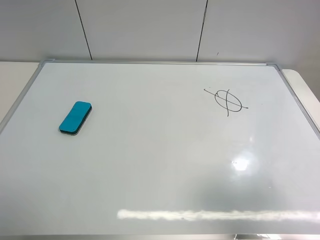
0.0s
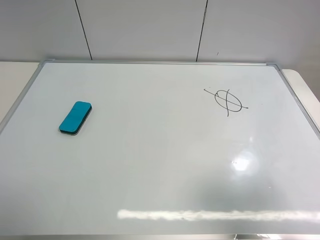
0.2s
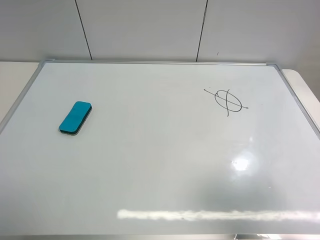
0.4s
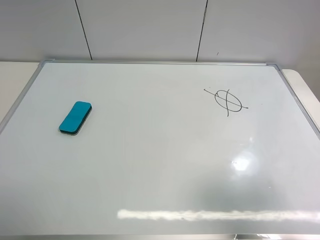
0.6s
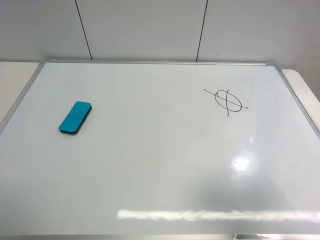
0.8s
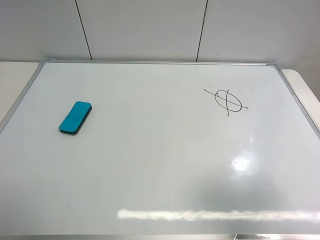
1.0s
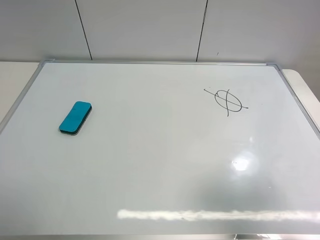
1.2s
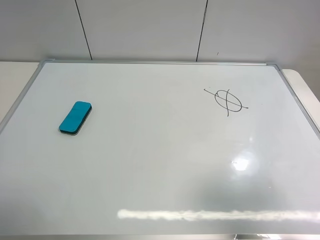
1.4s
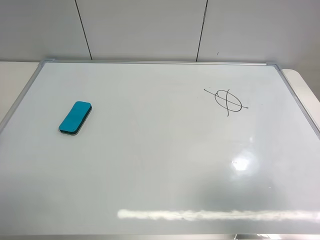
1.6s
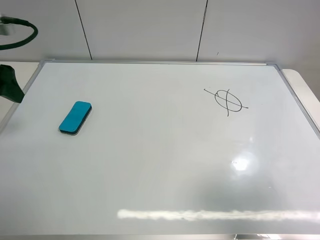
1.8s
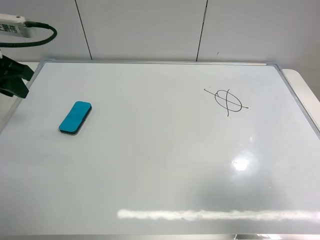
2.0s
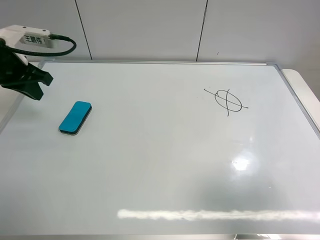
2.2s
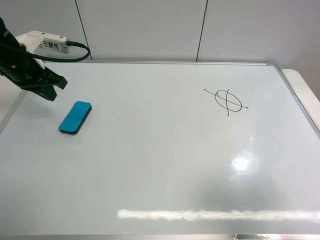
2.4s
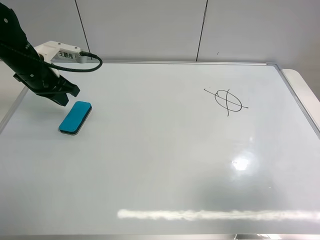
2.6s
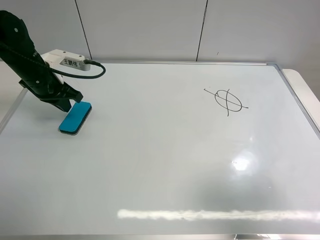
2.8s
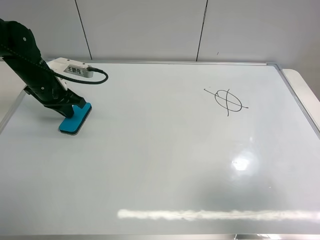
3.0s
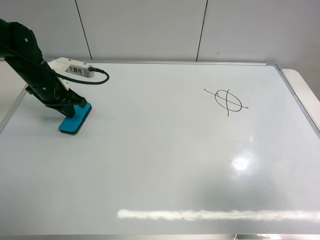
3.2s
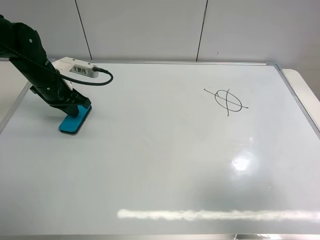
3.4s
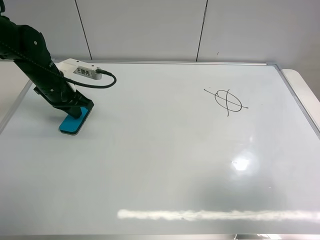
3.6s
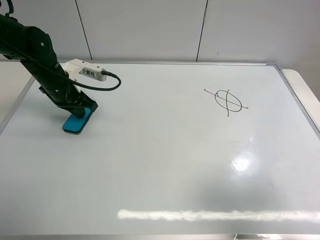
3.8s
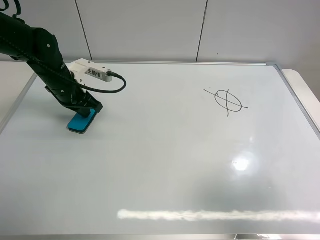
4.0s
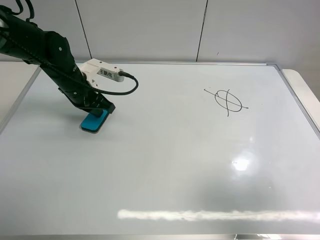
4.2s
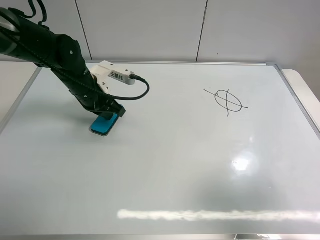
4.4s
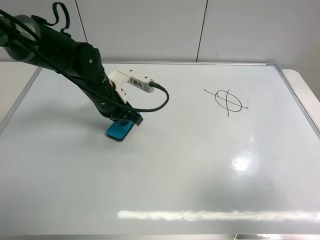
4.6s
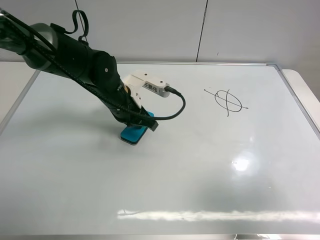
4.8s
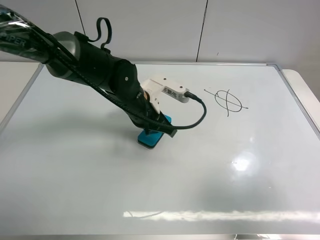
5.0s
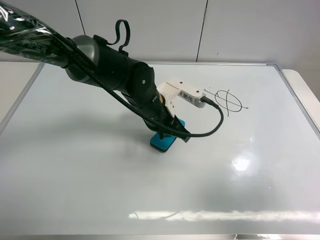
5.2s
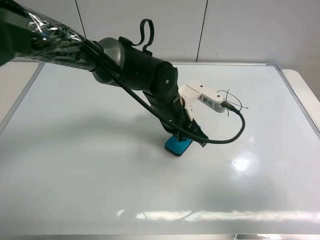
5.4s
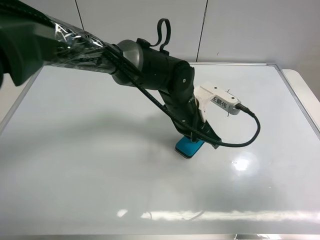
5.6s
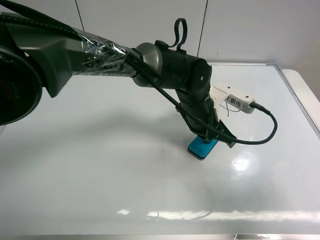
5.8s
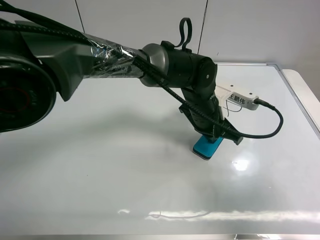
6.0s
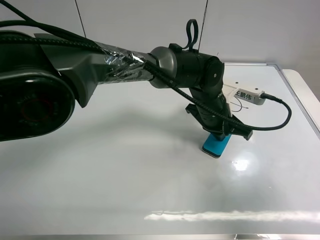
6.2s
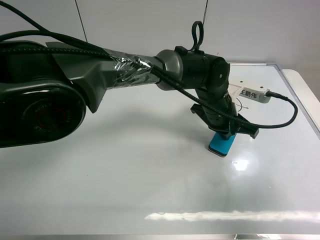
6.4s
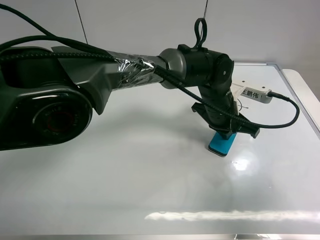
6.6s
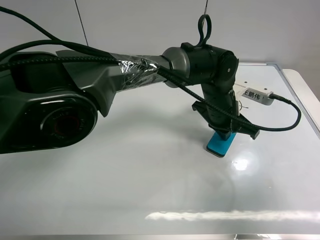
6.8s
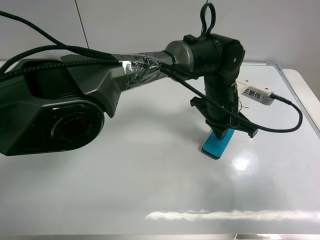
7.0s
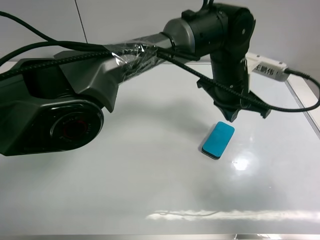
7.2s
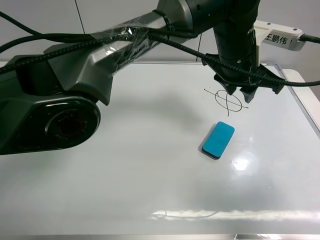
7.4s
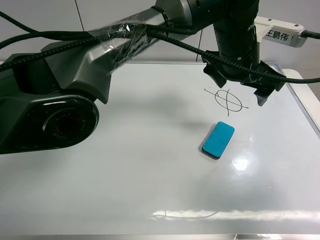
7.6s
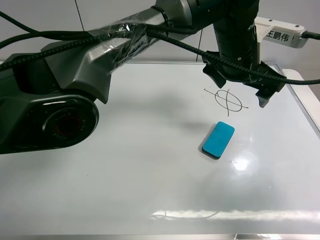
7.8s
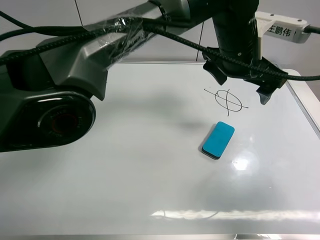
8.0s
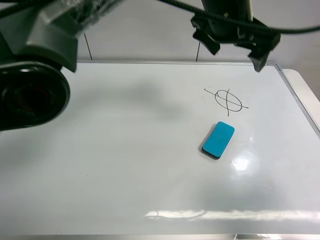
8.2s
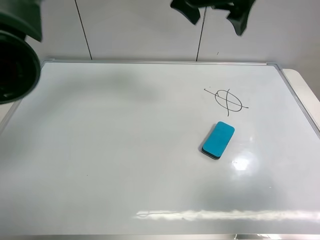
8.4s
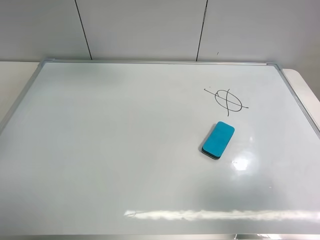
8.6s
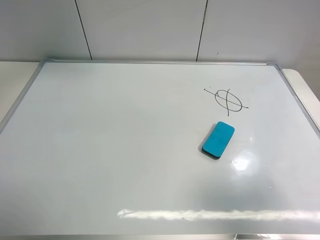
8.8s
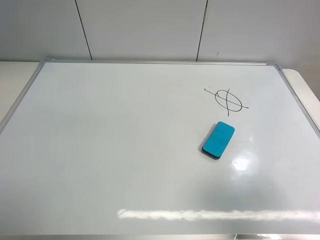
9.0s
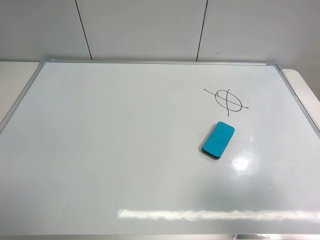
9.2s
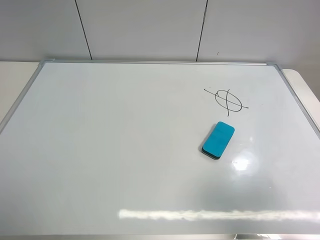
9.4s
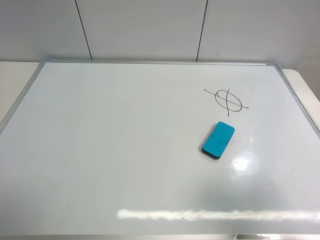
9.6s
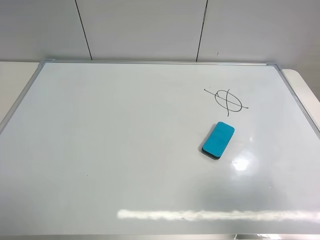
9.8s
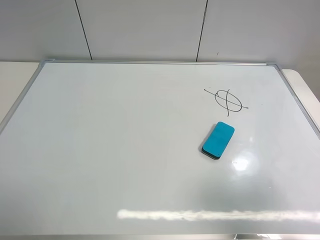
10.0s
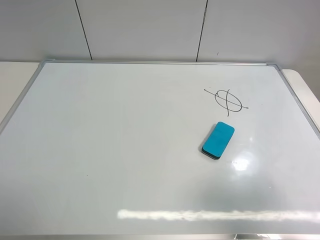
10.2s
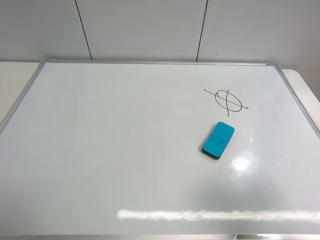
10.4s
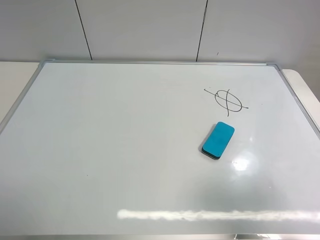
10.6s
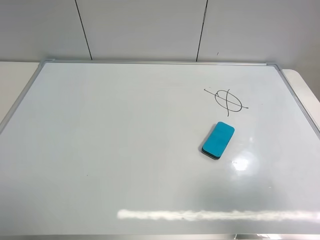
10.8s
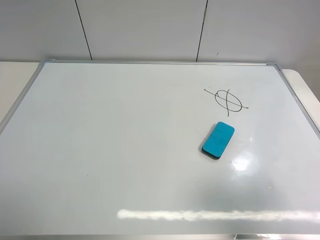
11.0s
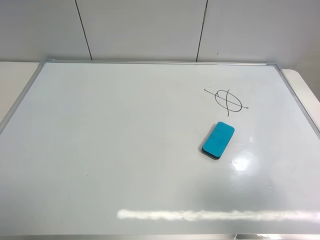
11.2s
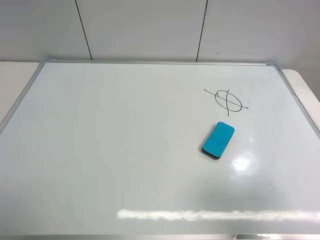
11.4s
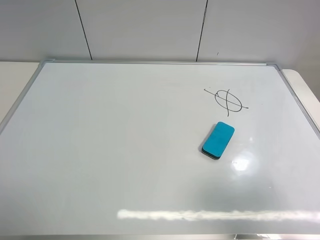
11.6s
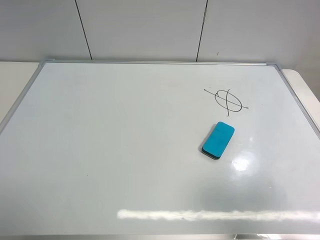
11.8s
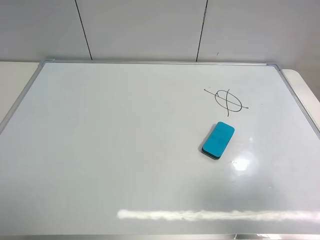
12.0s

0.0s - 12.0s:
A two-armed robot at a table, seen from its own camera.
Task of the whole recording: use the left gripper to place the eraser in the right, use the right gripper to pick up the eraser, wipe the notes on the whiteboard clean, and then put it down.
Step, 0.0s - 7.0s: Move the board eraser to the right of the whiteboard with left gripper.
1.6s - 3.0s: The left gripper goes roughly 20 cm forward and downward, and closes its fingers.
3.0s - 4.4s: The left gripper moves to the right, some 10 cm.
4.4s - 6.0s: The left gripper shifts roughly 25 cm to the right.
6.0s - 7.6s: The left gripper shifts some 15 cm upward, and opens.
7.6s - 9.0s: The left gripper travels to the left and upward by approximately 40 cm.
9.0s - 10.4s: The left gripper heads backward, covering roughly 40 cm.

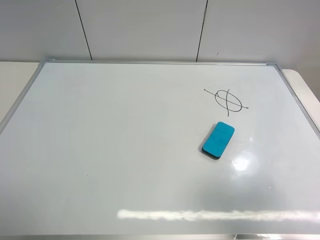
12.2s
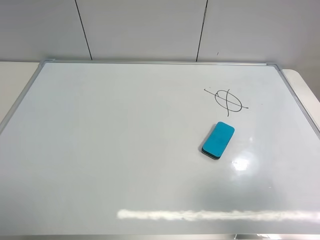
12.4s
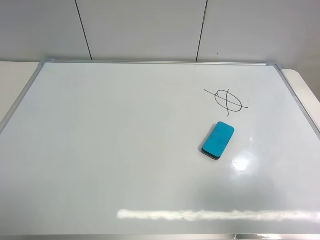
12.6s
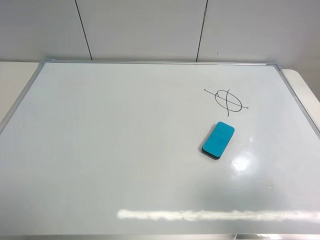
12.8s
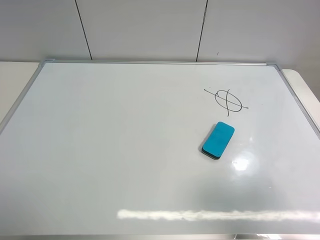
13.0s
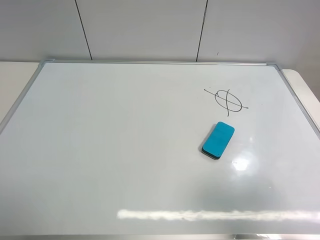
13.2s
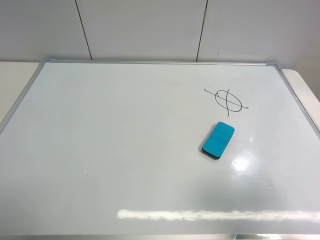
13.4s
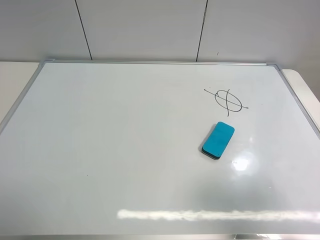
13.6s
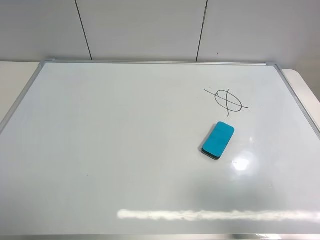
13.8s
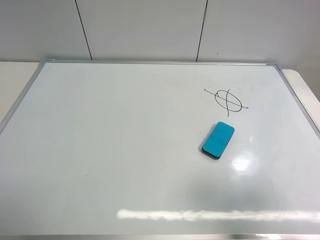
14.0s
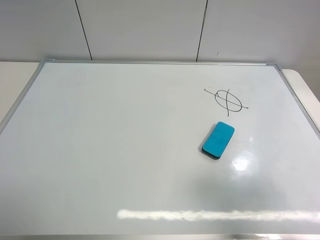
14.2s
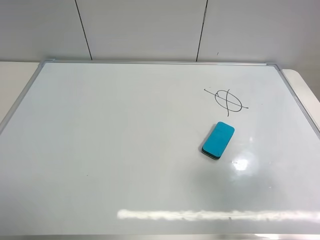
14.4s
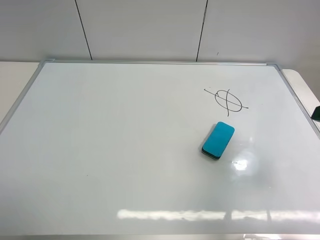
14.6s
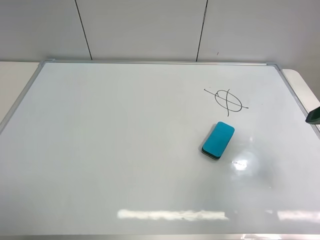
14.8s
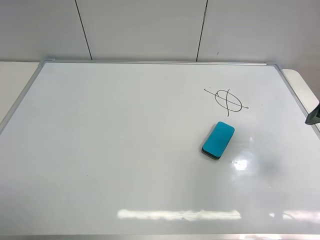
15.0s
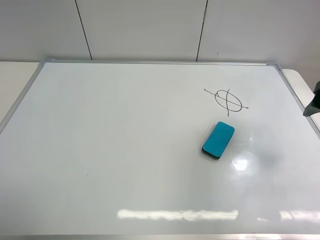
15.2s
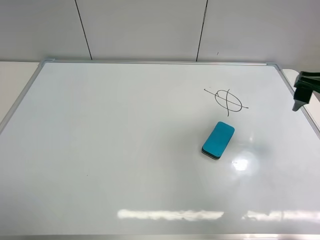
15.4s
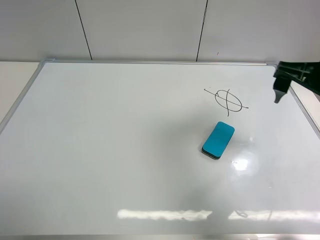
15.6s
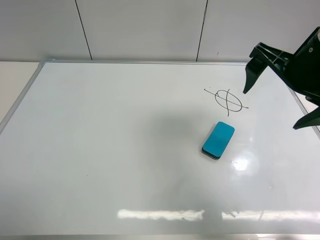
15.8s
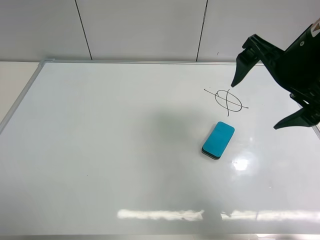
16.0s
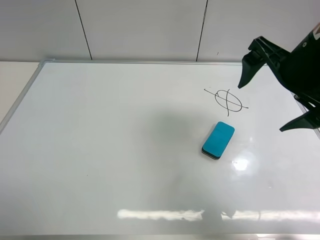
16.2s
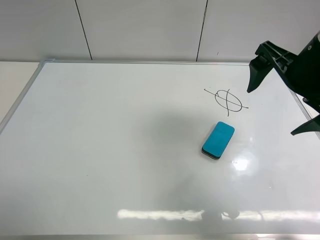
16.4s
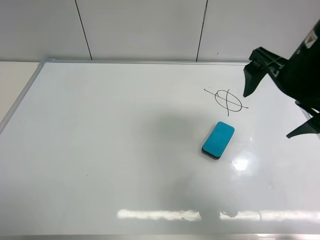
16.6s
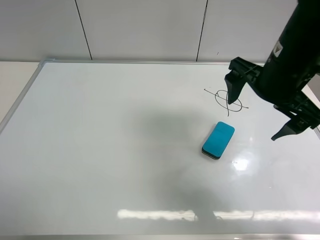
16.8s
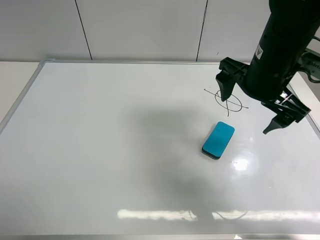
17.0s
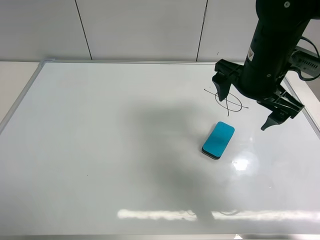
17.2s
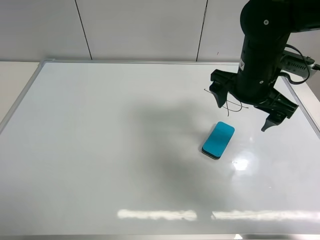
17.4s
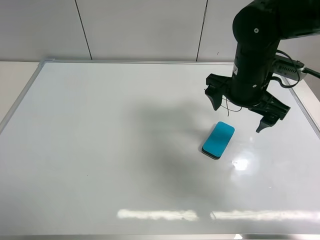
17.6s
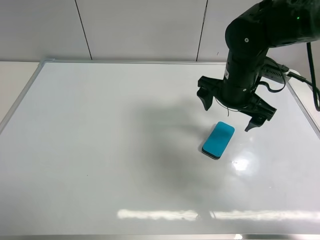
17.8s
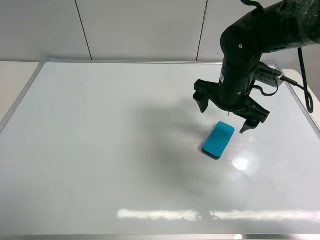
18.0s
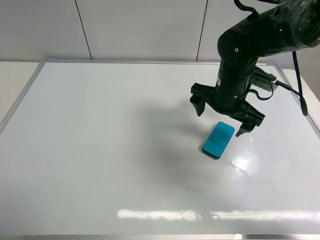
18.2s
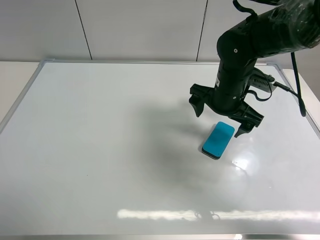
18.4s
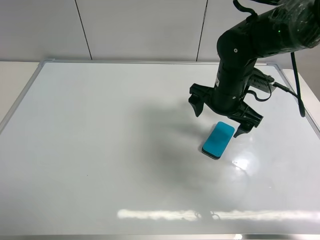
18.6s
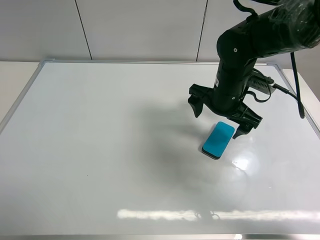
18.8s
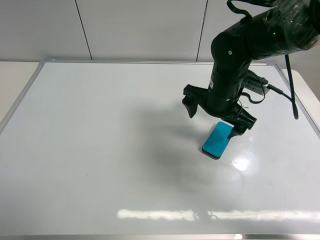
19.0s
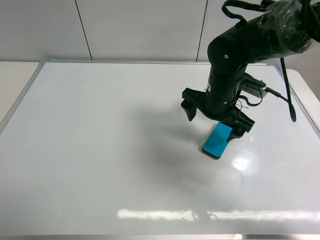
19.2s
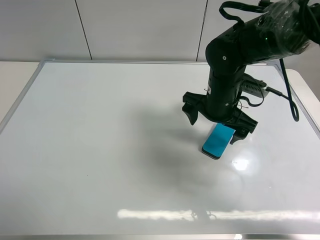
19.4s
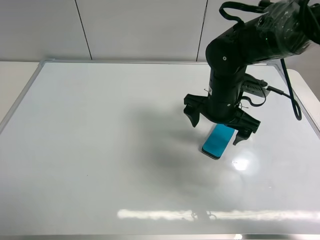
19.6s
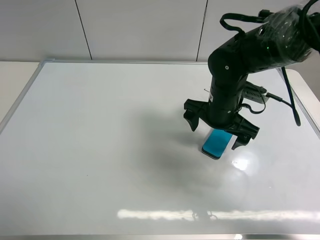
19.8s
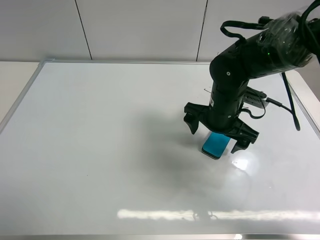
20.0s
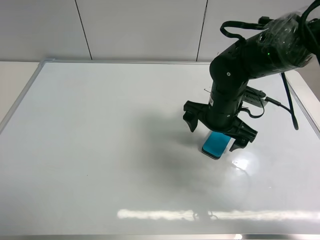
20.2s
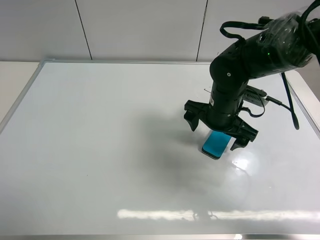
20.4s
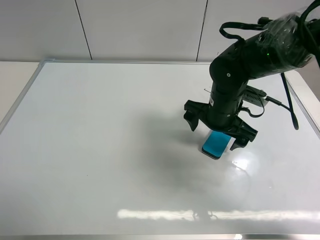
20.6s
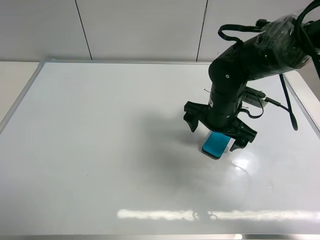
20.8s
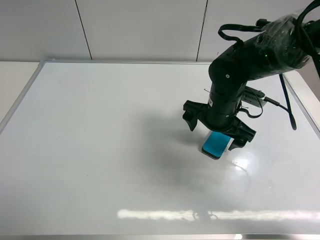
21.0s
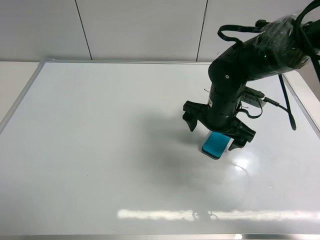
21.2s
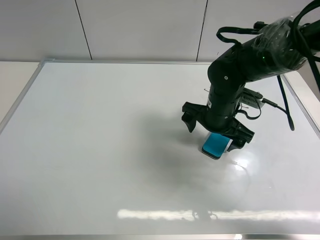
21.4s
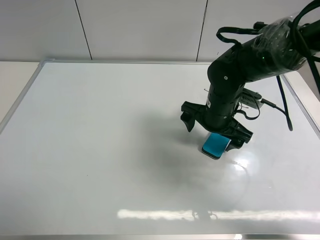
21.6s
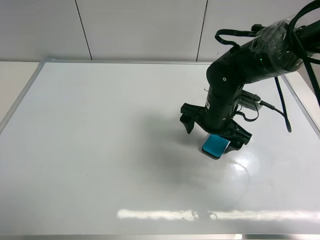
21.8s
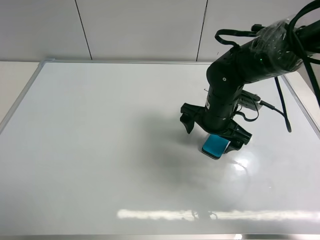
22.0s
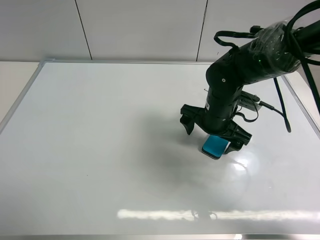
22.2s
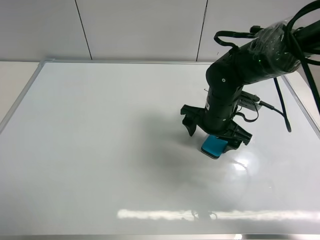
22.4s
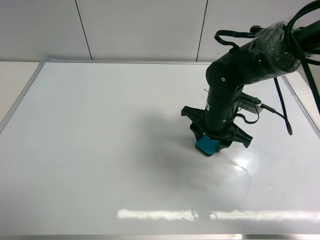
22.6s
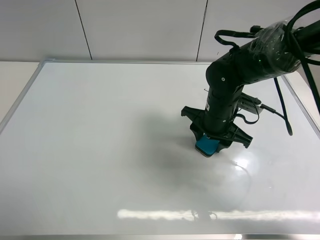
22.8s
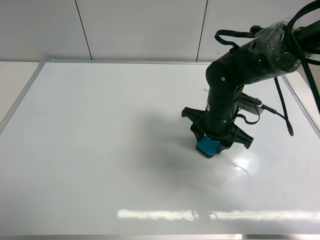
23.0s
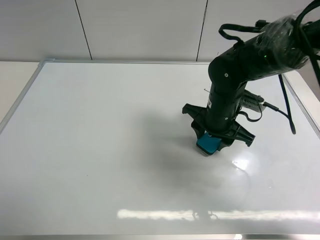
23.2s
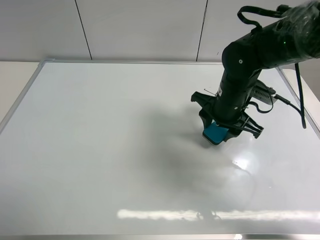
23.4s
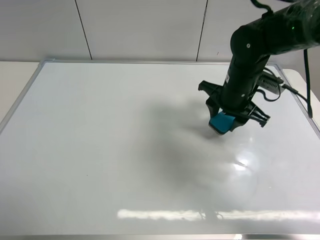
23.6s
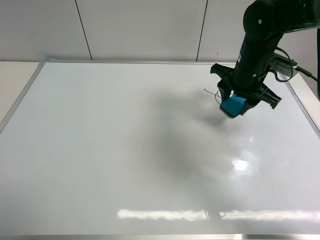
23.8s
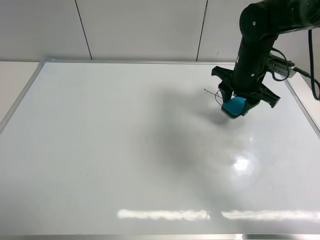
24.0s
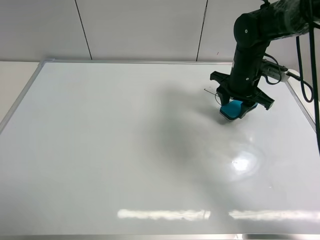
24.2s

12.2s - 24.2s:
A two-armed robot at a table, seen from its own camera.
Task of the whole recording: use the left gripper to place the eraser in the right, use the right gripper to pick up the eraser, wipe the notes on the whiteboard clean, and then put it down.
Step, 12.2s - 23.2s: Pick up the board eraser with right gripper.
13.8s - 15.2s: The right gripper travels forward by approximately 20 cm.
15.2s - 16.6s: The right gripper goes about 10 cm to the left.
16.6s - 18.2s: The right gripper travels downward, forward and to the left by approximately 15 cm.
18.2s - 19.8s: The grippers move only a little.
19.8s - 21.2s: Both grippers stay about where they are.
21.2s - 22.6s: The right gripper closes up.
22.6s - 24.2s: The right gripper goes some 10 cm forward and to the right.
